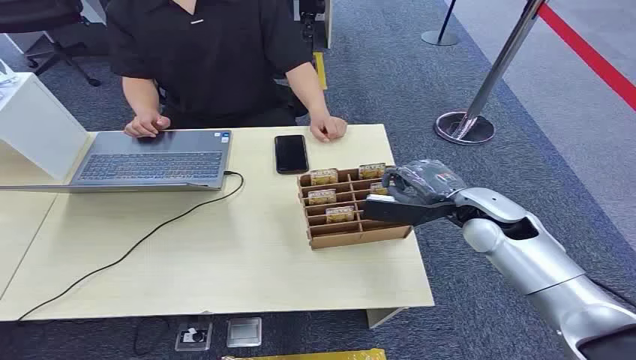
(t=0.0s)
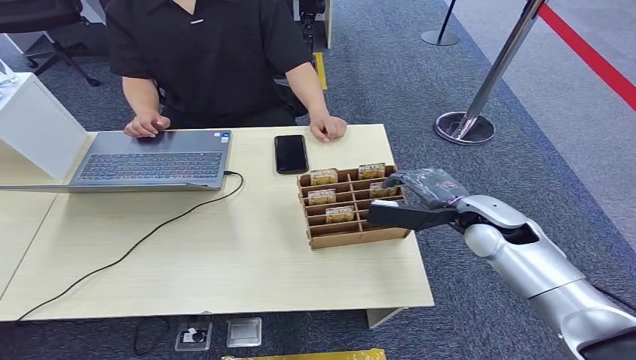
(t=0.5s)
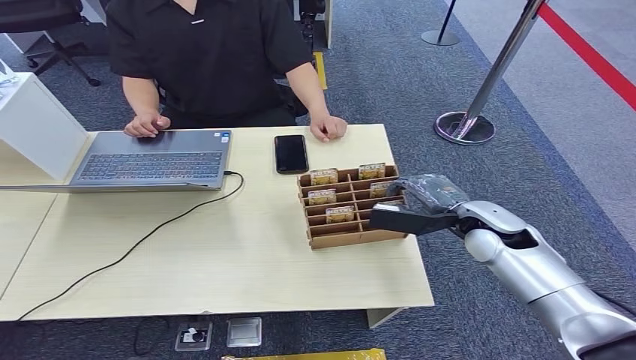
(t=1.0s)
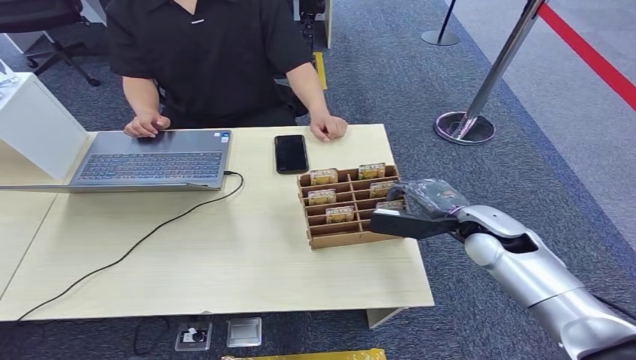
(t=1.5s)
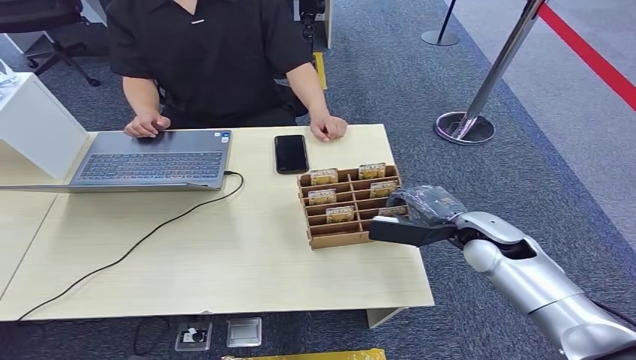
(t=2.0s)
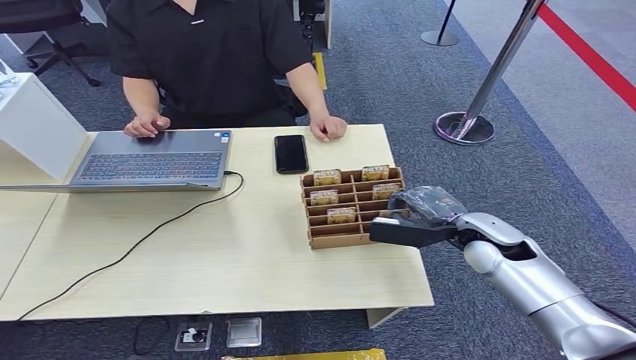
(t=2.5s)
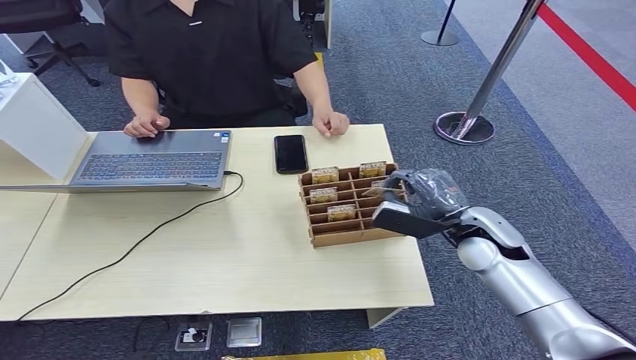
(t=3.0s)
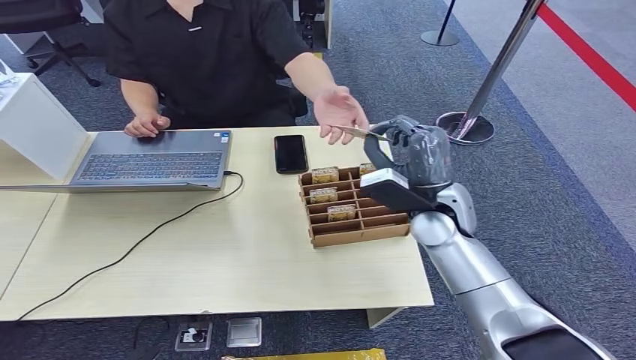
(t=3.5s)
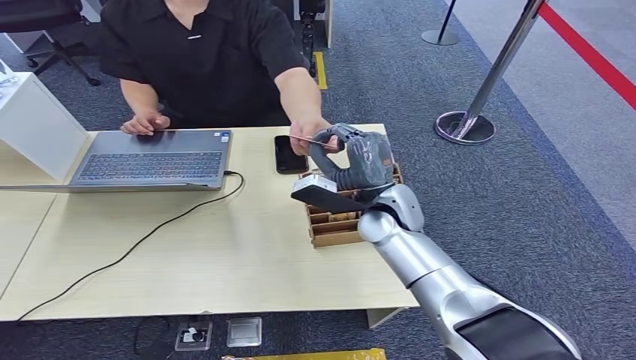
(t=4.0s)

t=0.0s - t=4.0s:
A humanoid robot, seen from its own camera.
Step, t=0.0s - t=3.0s: Pick up the key card from the card box.
Step, t=3.5s - t=4.0s: Hand the key card to the target.
t=2.0s - t=4.0s: The right hand shifts about 15 cm to the left.

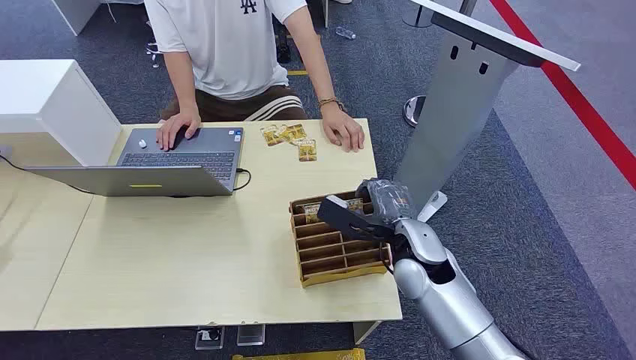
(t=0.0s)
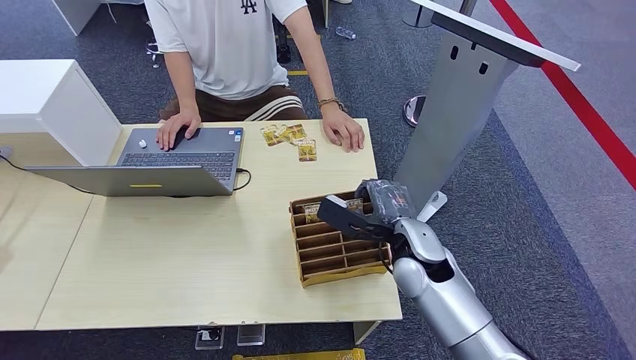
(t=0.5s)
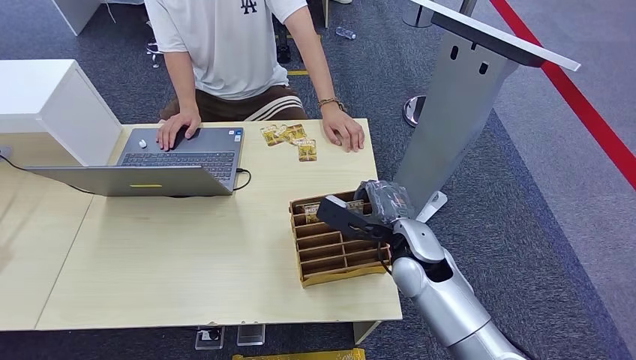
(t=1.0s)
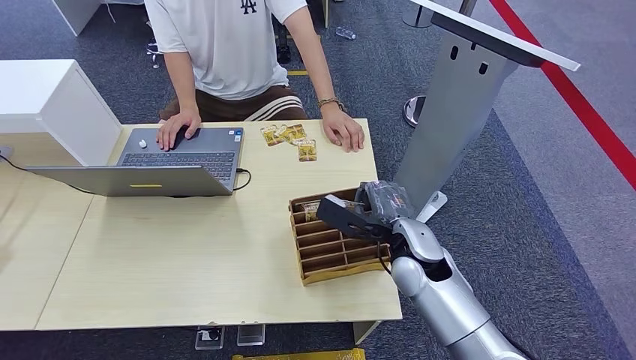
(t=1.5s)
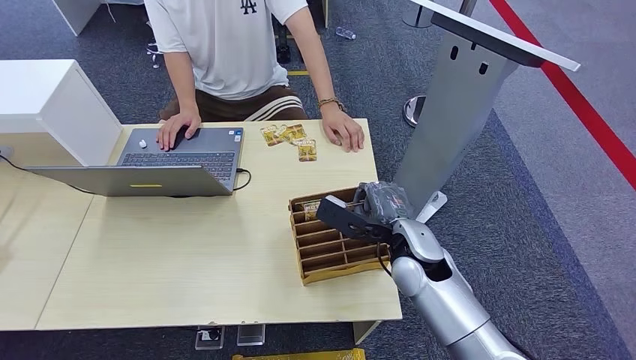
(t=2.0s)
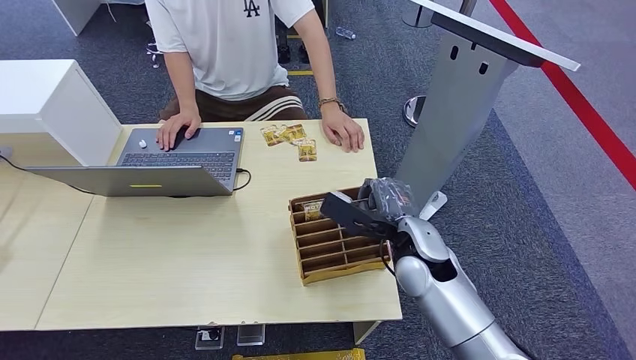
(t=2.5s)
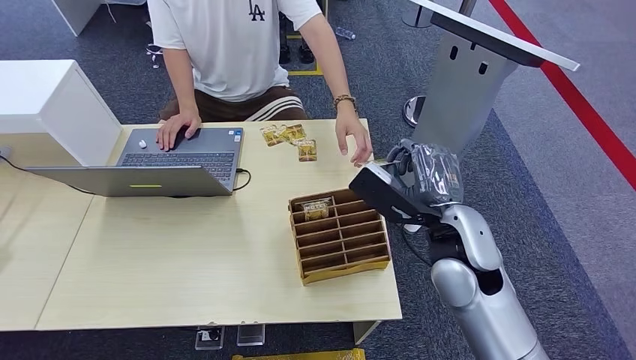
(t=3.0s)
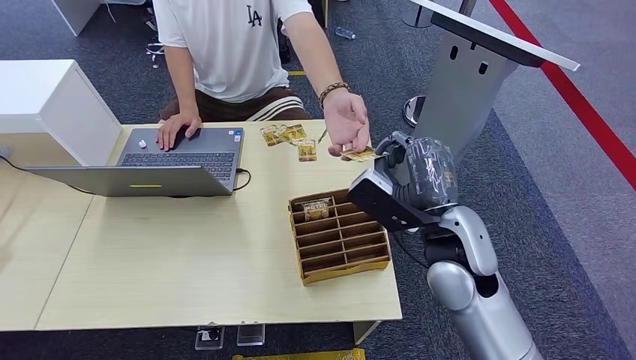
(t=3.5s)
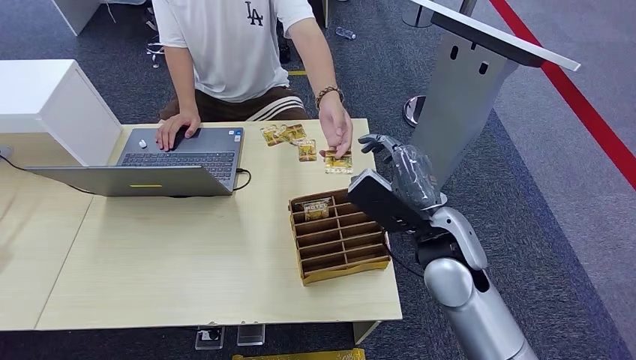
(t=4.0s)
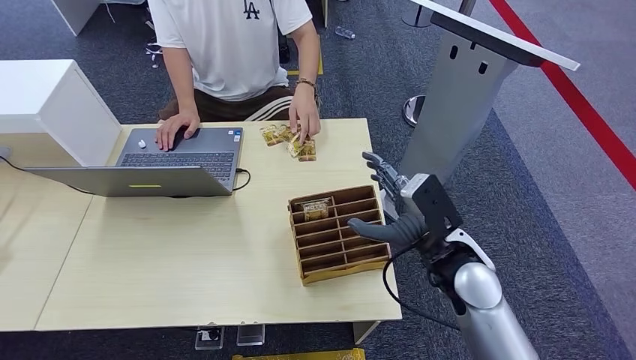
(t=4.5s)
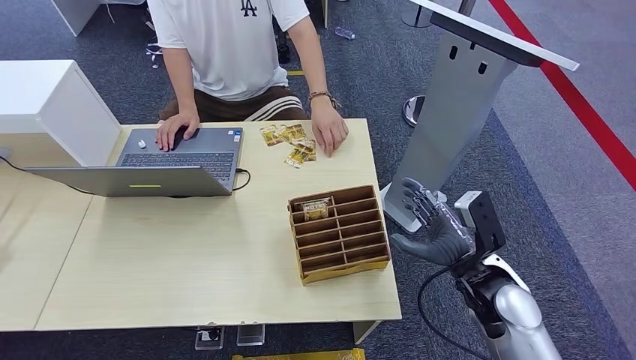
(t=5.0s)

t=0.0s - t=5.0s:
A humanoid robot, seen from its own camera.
Step, t=0.0s - t=2.5s: Pick up the key card from the card box.
Step, t=3.0s - t=5.0s: Hand the key card to the target.
t=2.5s - t=5.0s: The right hand moves to the right and backward, about 15 cm.
